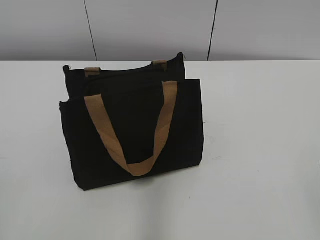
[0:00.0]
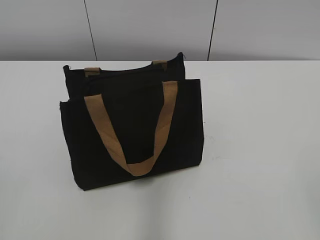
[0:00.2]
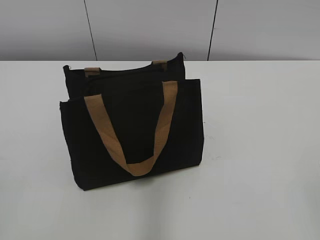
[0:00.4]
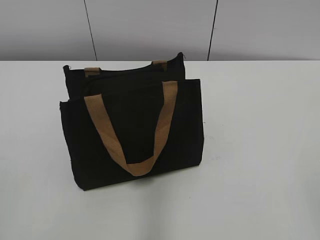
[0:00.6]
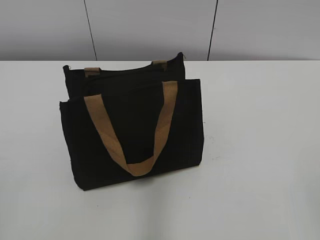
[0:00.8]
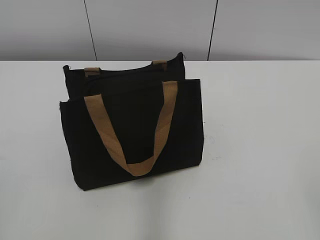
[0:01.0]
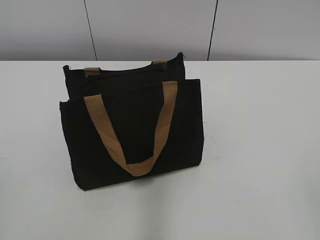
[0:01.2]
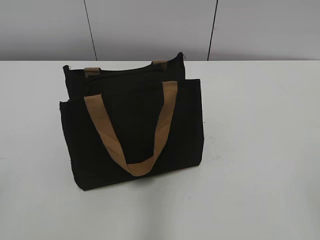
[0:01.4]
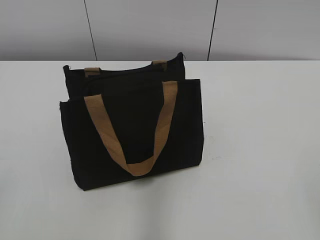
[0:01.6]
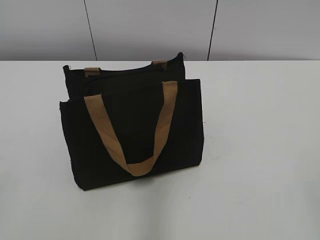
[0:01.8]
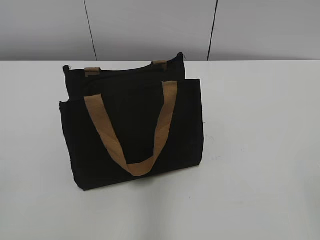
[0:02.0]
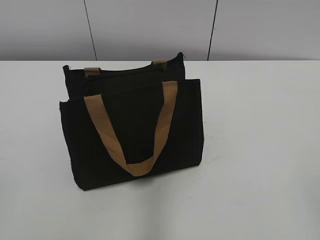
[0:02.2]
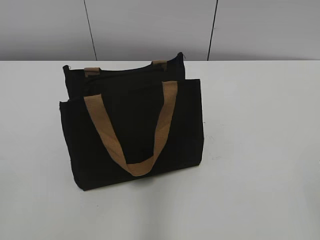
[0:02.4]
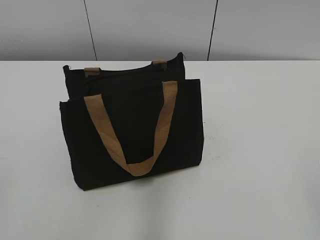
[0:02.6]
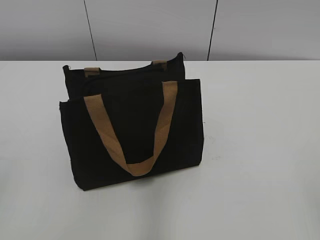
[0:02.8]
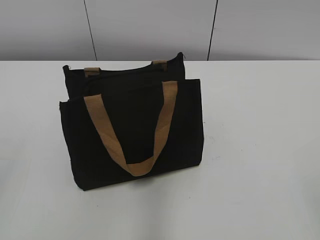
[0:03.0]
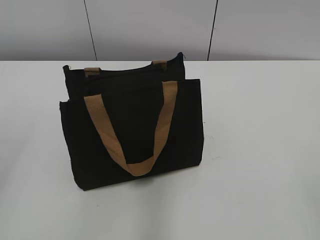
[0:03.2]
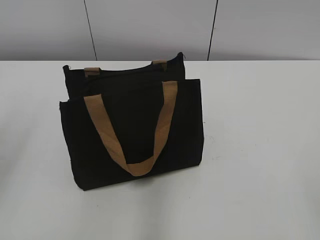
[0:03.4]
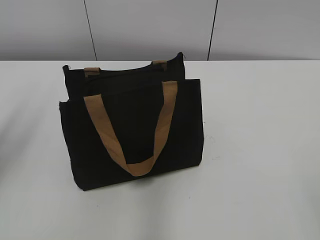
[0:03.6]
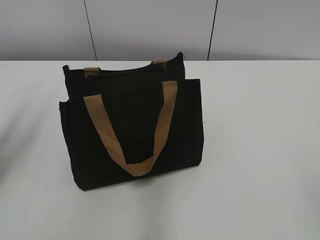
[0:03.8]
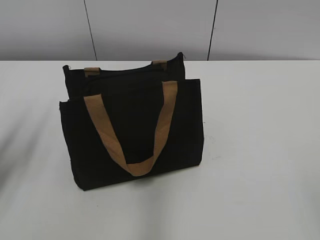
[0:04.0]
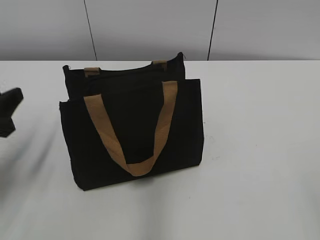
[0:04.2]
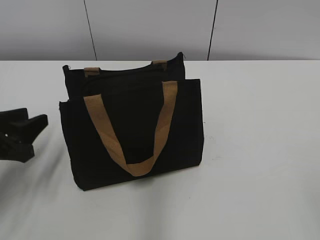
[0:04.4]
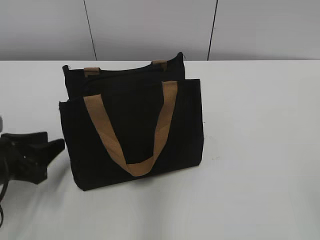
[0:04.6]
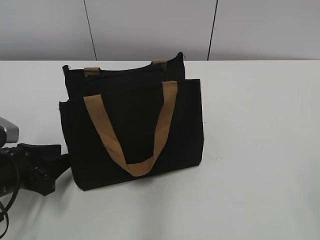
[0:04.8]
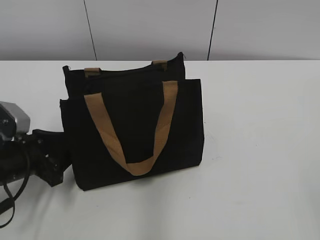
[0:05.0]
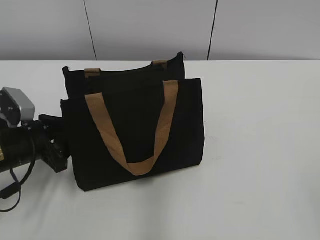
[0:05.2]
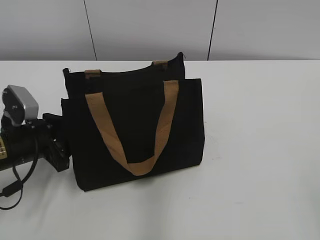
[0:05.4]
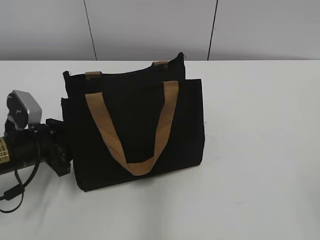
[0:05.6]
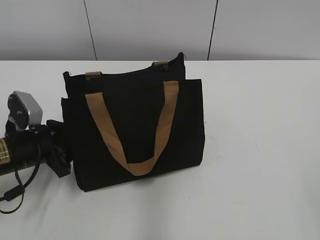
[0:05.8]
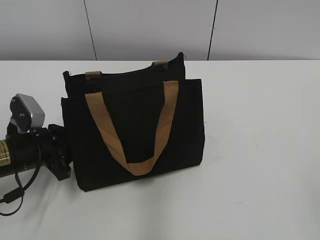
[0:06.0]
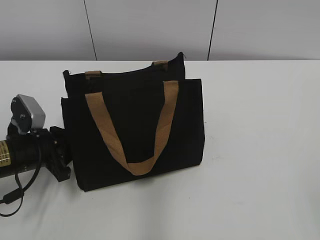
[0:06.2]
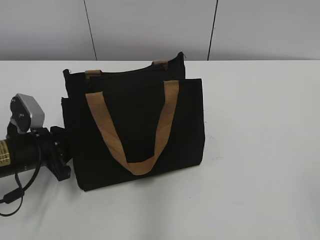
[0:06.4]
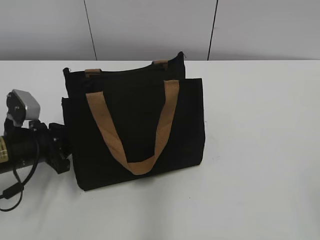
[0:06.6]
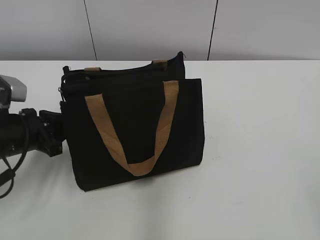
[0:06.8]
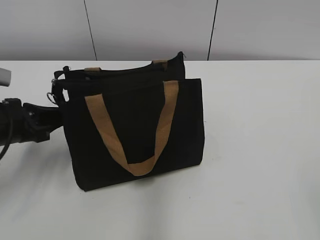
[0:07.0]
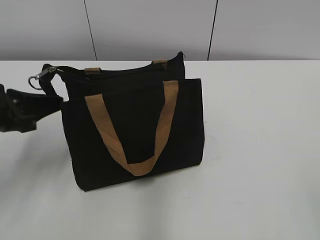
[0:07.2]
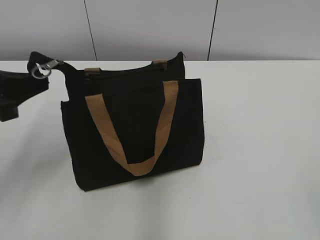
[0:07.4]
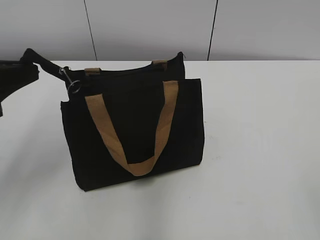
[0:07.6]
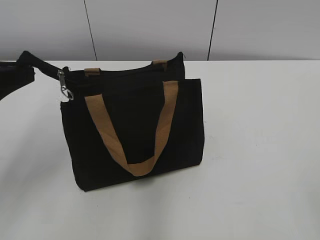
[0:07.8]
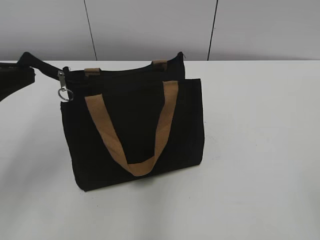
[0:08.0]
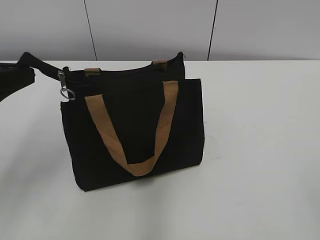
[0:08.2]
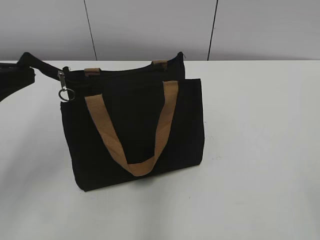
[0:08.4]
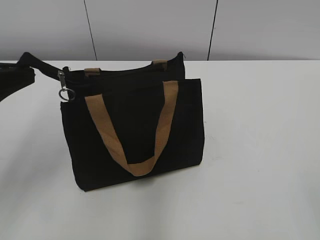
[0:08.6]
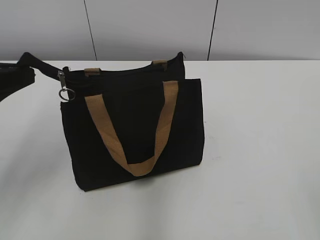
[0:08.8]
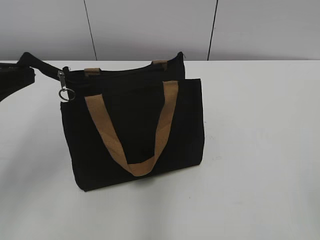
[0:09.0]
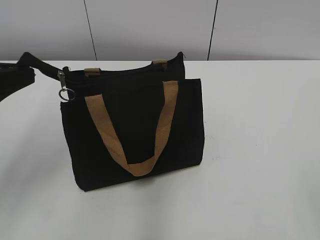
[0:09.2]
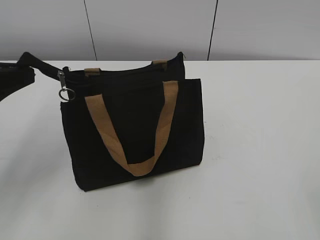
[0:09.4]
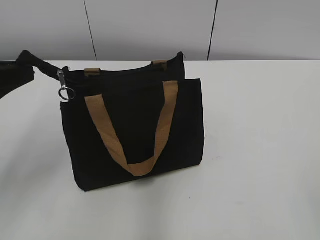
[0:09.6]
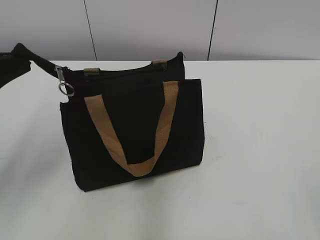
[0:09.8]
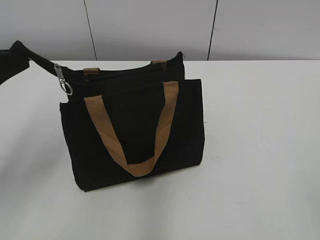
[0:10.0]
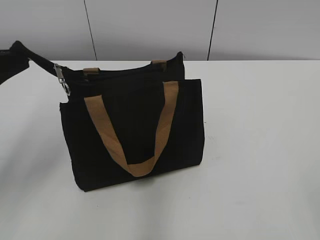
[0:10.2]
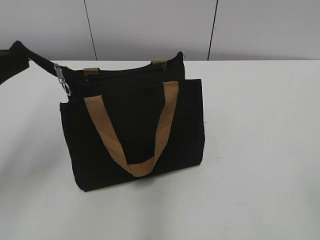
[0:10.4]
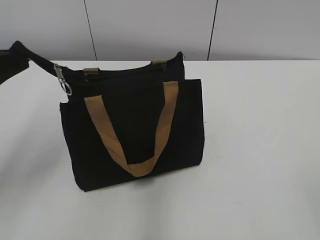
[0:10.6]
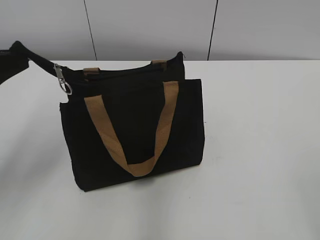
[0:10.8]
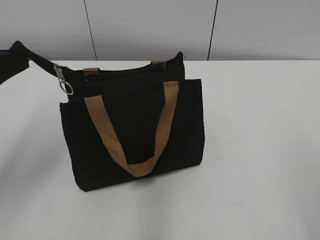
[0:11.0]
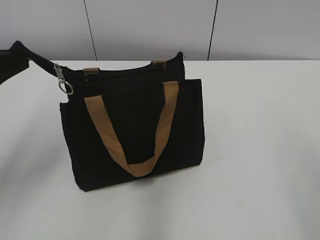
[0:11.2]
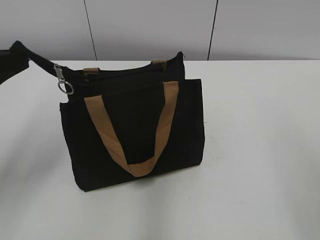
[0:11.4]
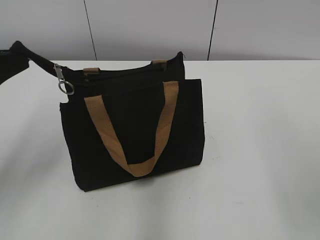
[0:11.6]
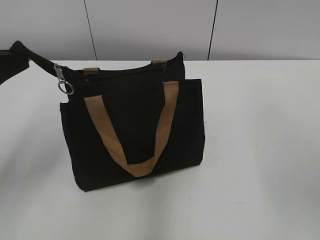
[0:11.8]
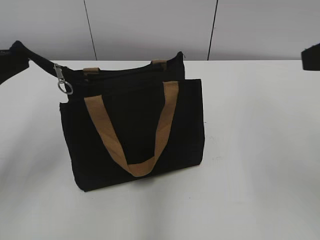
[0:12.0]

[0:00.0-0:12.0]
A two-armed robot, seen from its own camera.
0:03.0 to 0:04.4: The left gripper goes roughly 25 cm forward and downward.
0:04.4 to 0:06.0: The left gripper moves downward, approximately 5 cm.
0:06.0 to 0:07.6: The left gripper is displaced upward by roughly 15 cm, and closes.
0:07.6 to 0:09.0: Both grippers stay about where they are.
0:09.0 to 0:10.4: The grippers move only a little.
0:10.4 to 0:12.0: The right gripper heads forward, covering approximately 20 cm.

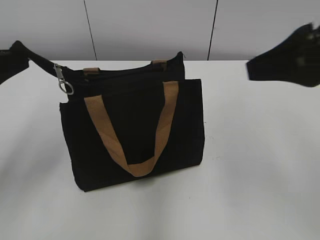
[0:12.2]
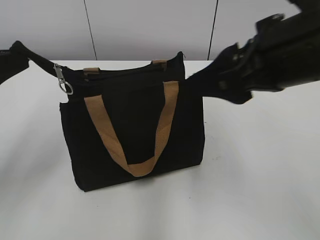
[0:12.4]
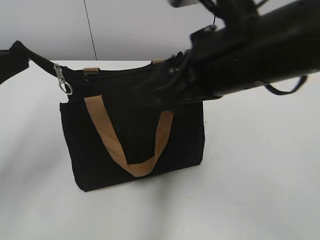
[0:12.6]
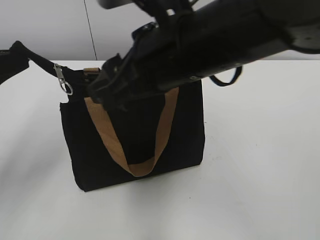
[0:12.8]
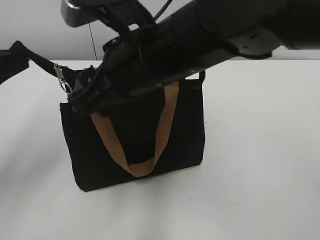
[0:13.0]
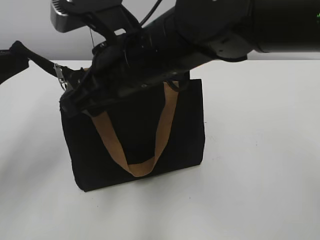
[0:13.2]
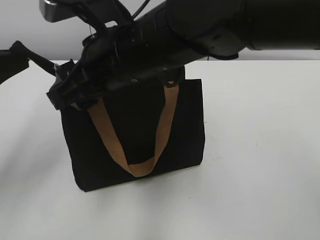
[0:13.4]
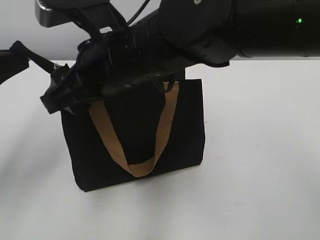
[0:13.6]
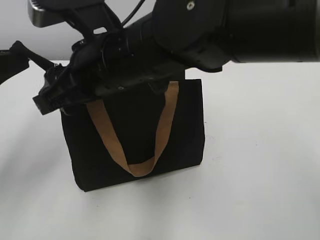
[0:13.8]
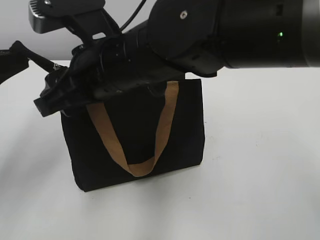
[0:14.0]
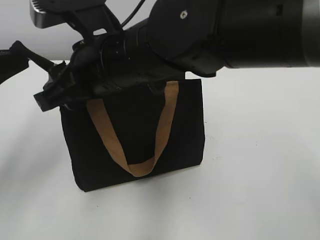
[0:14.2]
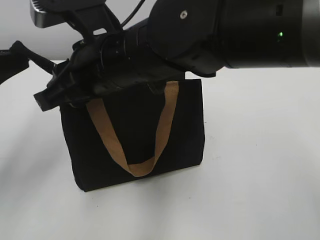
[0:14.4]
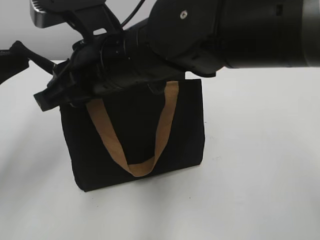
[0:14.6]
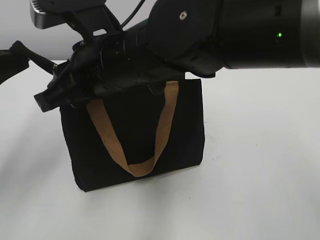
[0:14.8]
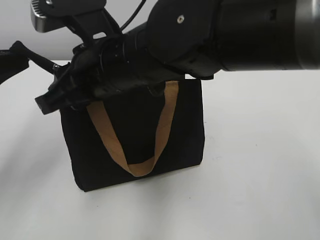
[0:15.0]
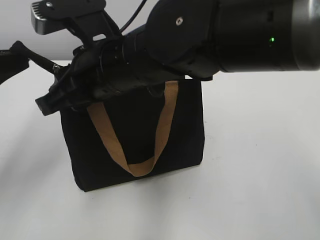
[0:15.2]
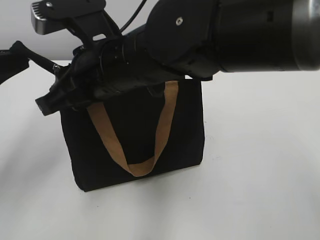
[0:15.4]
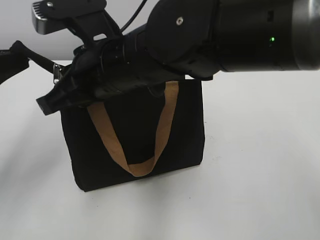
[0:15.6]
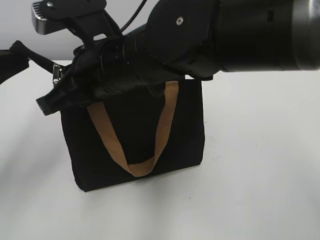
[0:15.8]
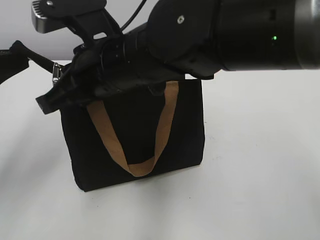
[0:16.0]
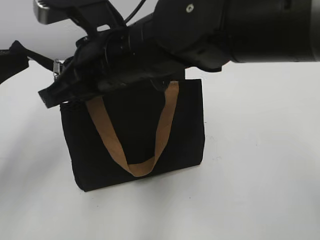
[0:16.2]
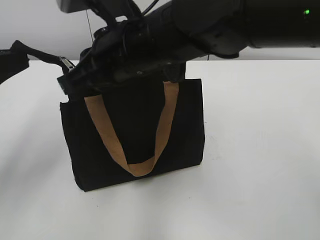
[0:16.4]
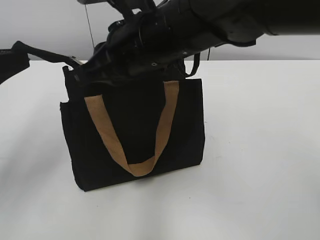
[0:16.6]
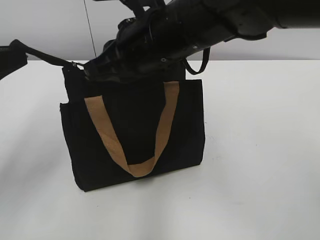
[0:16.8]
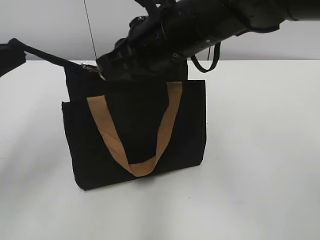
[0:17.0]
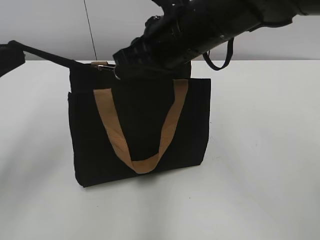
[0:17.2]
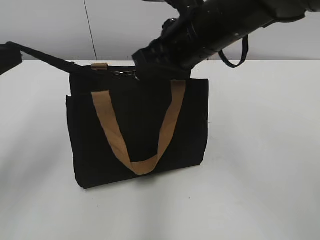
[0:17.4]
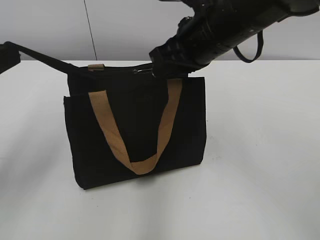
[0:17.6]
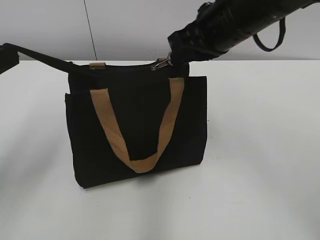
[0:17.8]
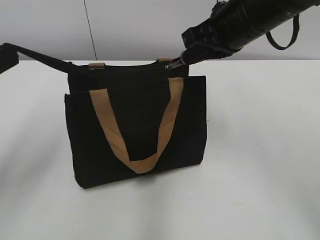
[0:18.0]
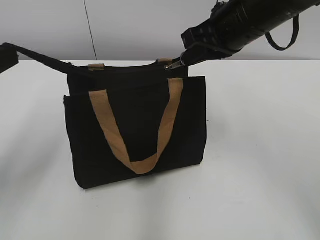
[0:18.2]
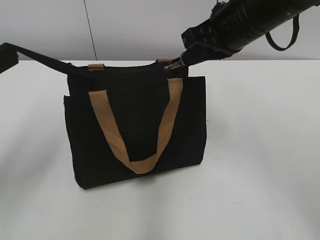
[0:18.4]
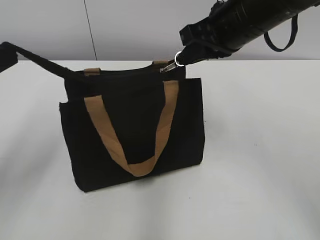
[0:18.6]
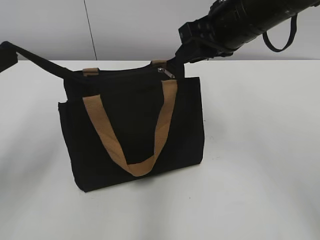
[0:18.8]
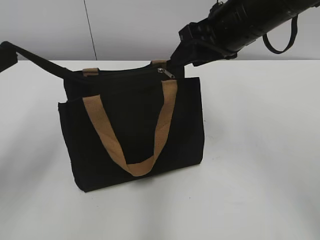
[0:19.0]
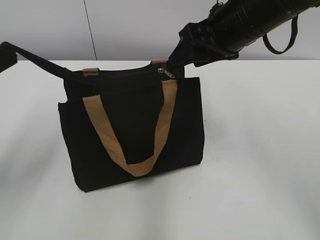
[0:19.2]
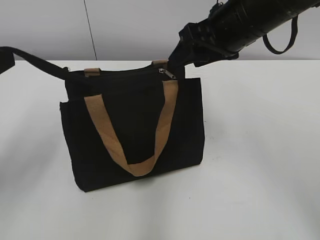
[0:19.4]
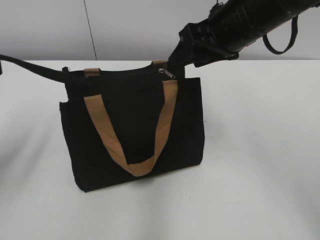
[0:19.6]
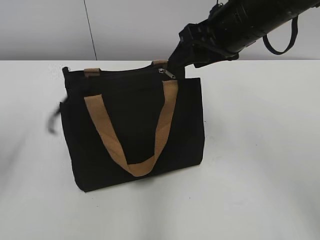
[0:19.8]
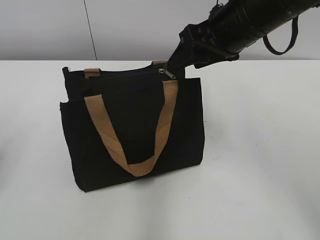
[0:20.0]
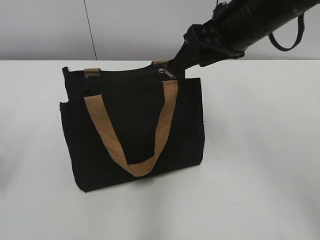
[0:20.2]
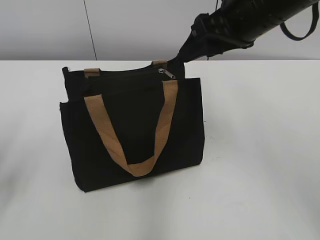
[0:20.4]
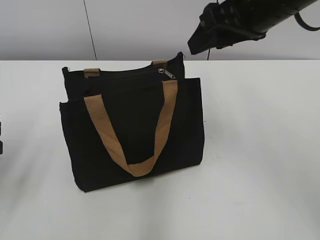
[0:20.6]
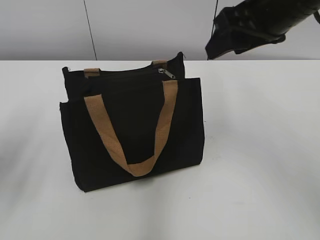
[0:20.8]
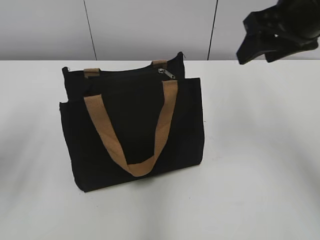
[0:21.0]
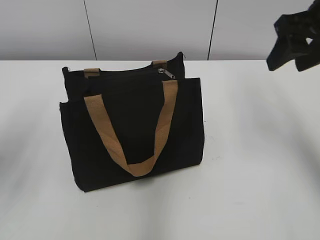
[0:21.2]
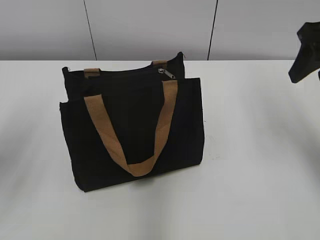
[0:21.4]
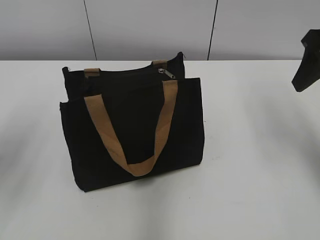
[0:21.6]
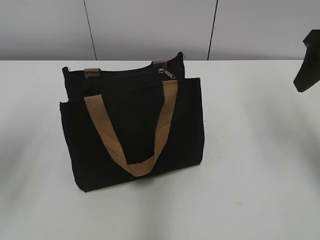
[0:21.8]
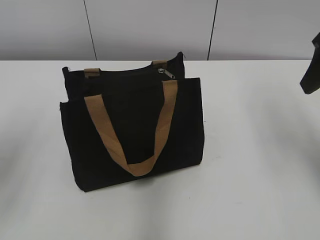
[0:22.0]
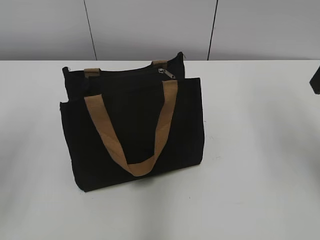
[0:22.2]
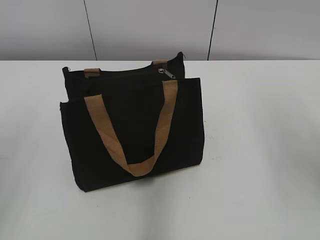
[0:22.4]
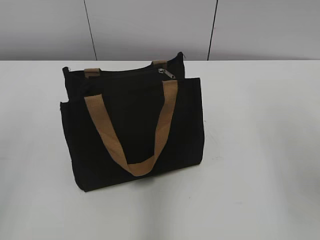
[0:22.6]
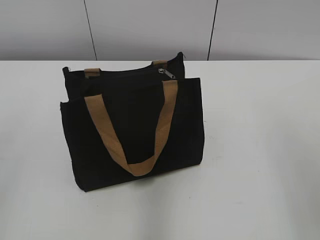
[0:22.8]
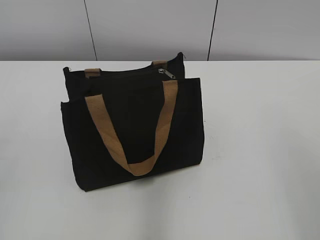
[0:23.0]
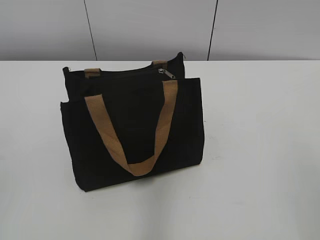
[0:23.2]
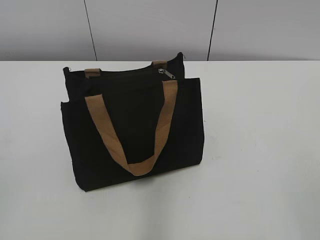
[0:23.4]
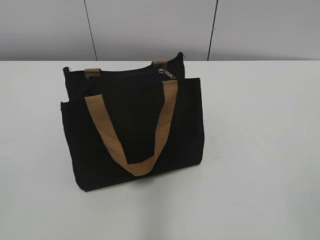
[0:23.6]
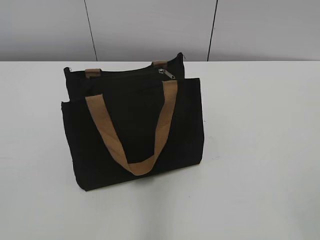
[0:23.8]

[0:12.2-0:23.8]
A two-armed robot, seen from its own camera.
Step, 0:12.2 to 0:18.6: Zip up the bag with your right hand.
Step, 0:18.8 to 0:19.6: Grab the zipper with your left hand.
0:12.2 to 0:13.6: The right gripper heads to the left, covering some 25 cm.
0:13.6 to 0:15.0: The right gripper closes up.
0:15.0 to 0:16.6: The right gripper closes its fingers.
0:16.6 to 0:18.0: The right gripper is displaced to the right and forward by roughly 15 cm.
0:18.0 to 0:19.4: The right gripper opens.
0:19.4 to 0:21.0: The right gripper moves to the right, roughly 5 cm. The left gripper opens its fingers.
0:21.0 to 0:22.4: The right gripper moves backward and to the right, roughly 10 cm.
0:22.4 to 0:23.8: The two grippers go approximately 20 cm backward.
